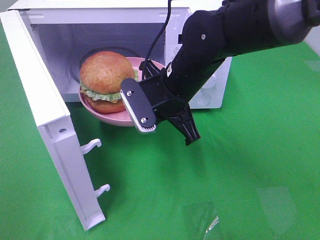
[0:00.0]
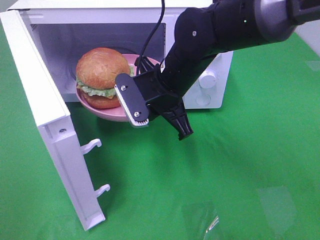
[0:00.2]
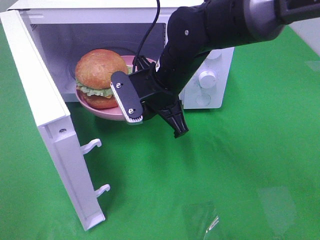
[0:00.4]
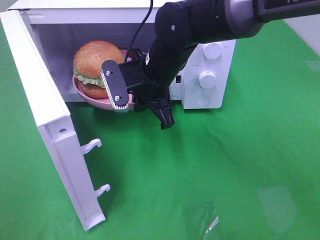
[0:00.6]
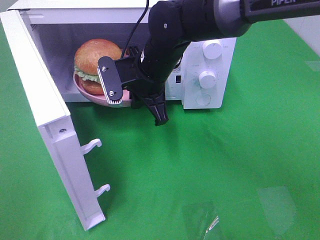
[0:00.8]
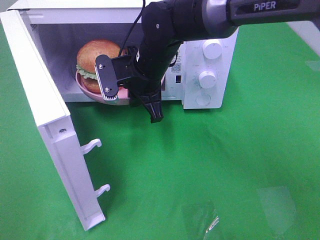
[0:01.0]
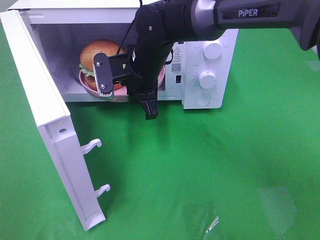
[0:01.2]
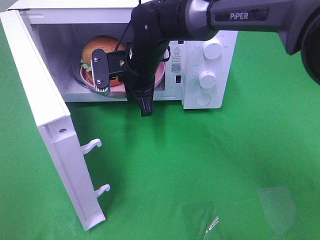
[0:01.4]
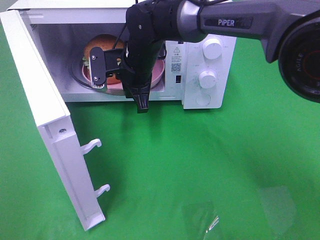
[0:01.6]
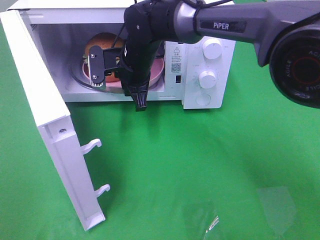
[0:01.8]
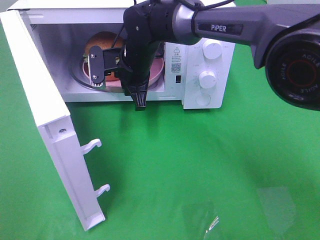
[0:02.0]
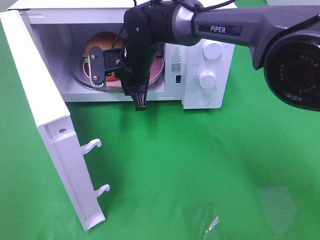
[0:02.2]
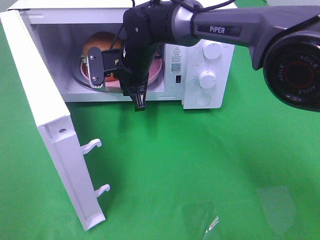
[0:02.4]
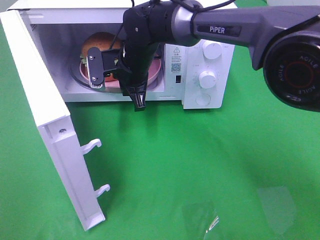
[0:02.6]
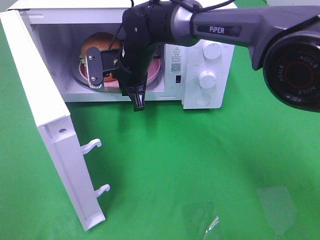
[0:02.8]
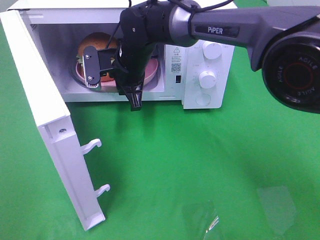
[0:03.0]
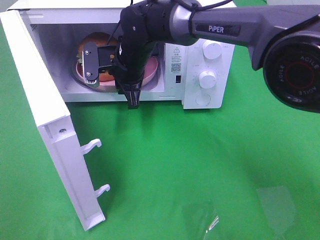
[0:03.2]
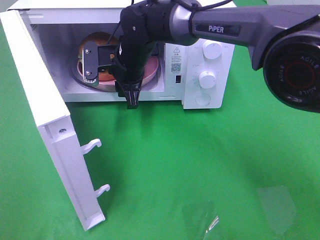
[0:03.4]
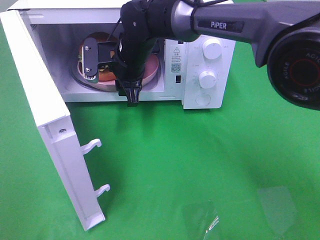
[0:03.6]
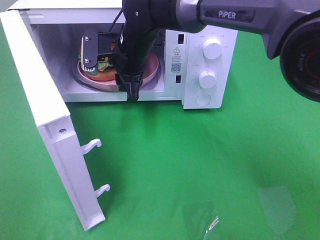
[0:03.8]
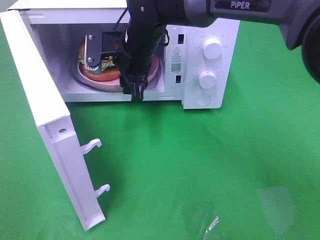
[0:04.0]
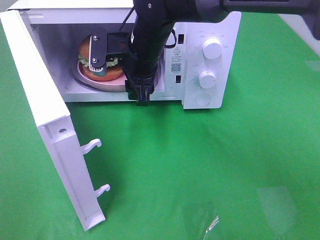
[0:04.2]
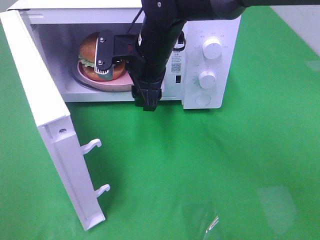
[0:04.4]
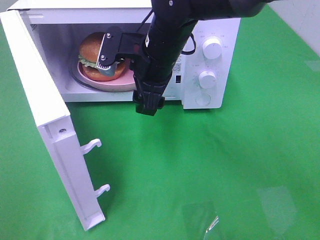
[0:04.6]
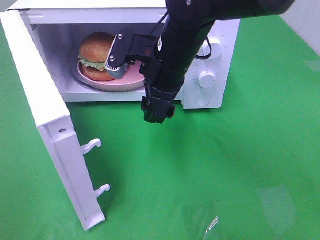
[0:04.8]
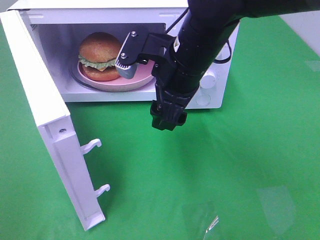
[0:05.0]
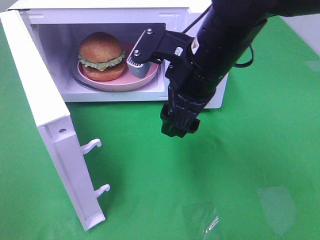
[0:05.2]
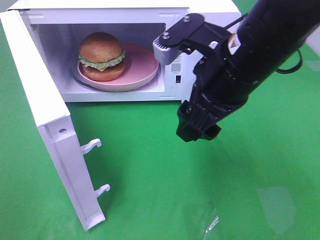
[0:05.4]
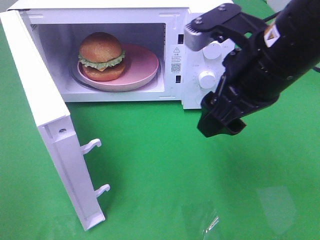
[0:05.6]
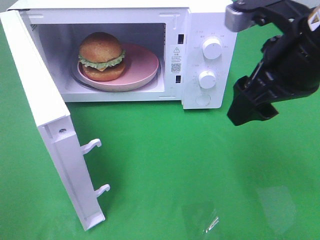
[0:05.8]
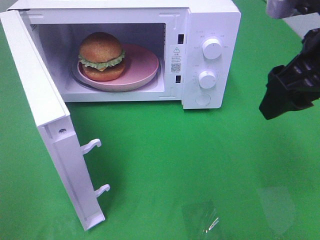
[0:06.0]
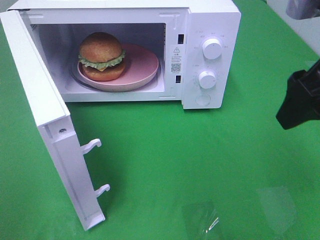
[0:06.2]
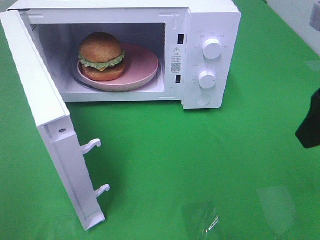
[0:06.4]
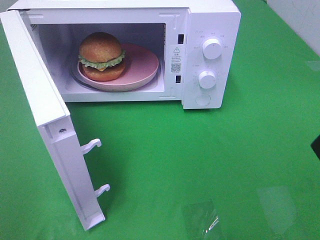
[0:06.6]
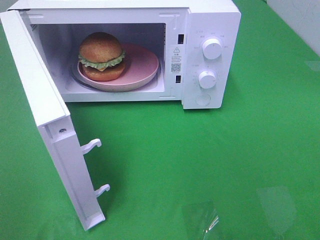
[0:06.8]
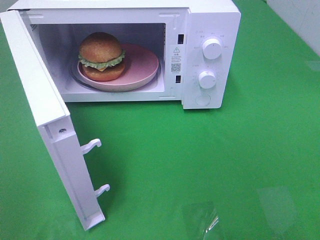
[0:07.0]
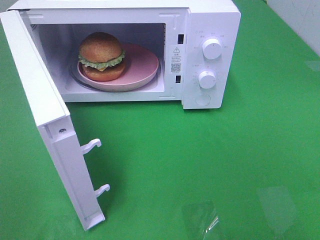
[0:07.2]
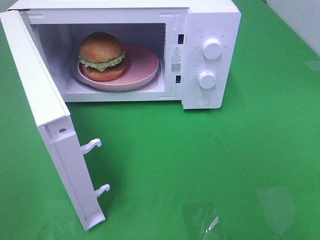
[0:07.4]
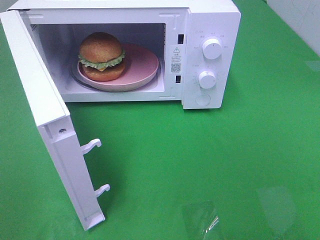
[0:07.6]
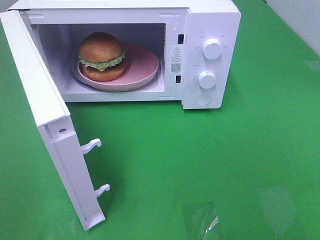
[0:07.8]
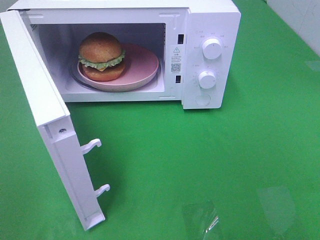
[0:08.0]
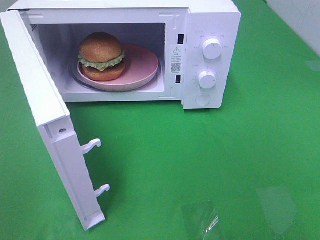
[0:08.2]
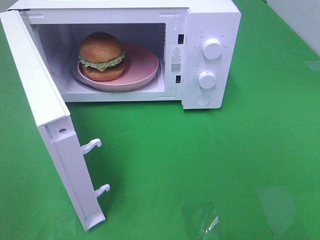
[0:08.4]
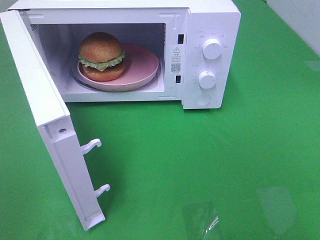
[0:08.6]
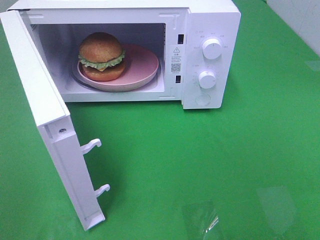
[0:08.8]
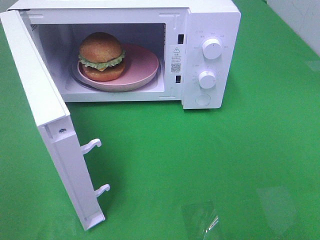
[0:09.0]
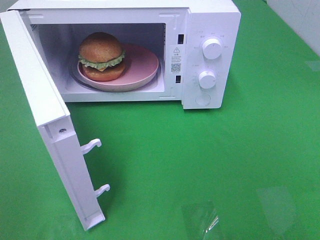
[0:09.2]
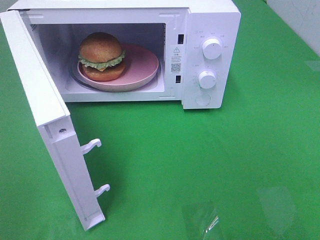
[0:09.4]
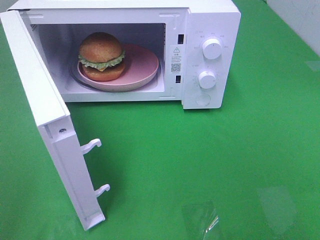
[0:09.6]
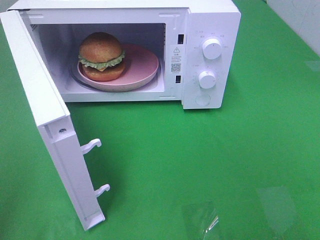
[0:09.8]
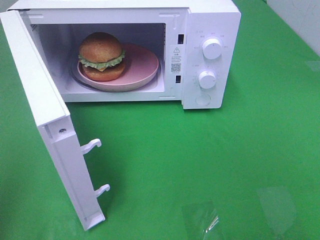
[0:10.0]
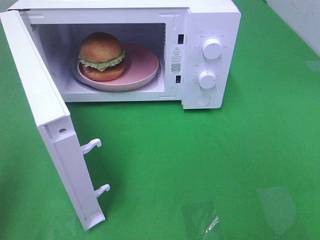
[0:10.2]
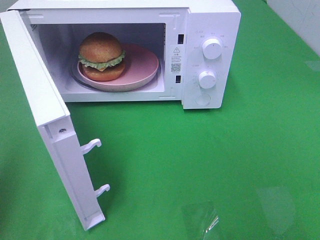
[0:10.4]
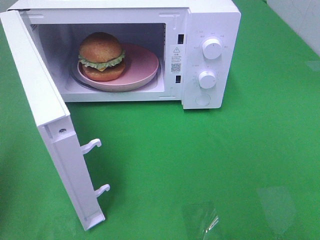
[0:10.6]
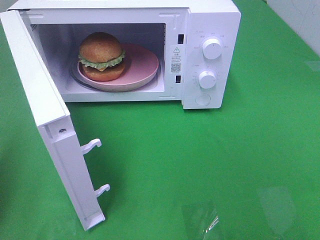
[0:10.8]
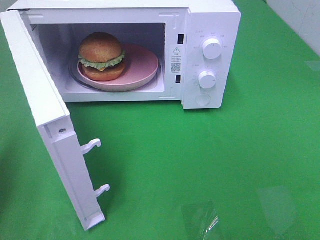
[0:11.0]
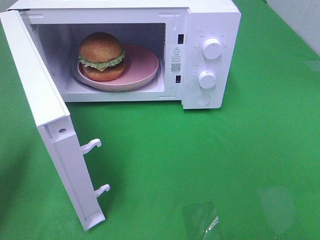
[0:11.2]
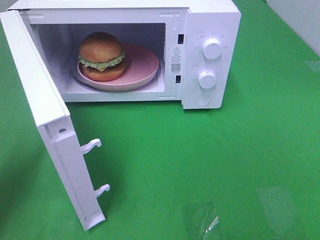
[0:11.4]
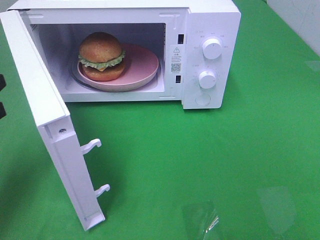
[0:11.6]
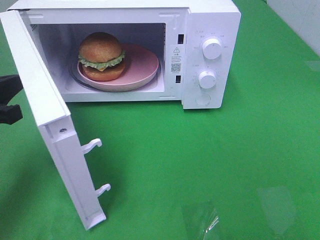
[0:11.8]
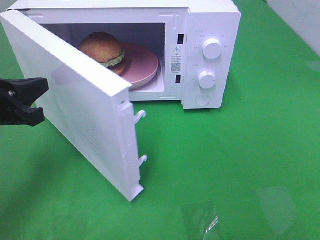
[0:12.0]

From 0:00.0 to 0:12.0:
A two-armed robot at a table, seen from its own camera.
Task of the whole recording: Heat the burger.
Step, from 0:00.0 to 0:02.6: Right hand: place the plate in the microwave.
From 0:00.0 to 0:01.6: The right gripper travels forward and to the left by approximately 10 cm.
From 0:01.6 to 0:03.0: The grippers make only small movements.
From 0:03.0 to 0:04.4: The right gripper changes place by roughly 10 cm, and opens its fingers.
From 0:04.4 to 0:06.0: The right gripper is displaced to the right, backward and upward by about 25 cm.
From 0:06.0 to 0:07.6: The right gripper travels backward and to the right by about 25 cm.
From 0:07.6 to 0:09.0: The two grippers keep their place.
From 0:10.4 to 0:12.0: The left gripper heads forward, downward and to the right, covering about 20 cm.

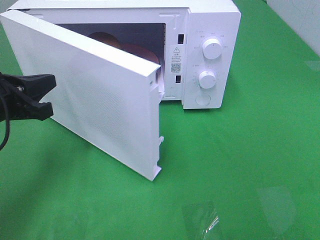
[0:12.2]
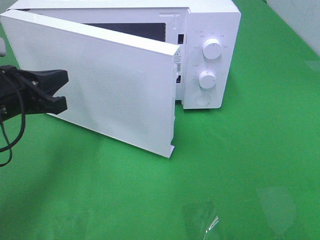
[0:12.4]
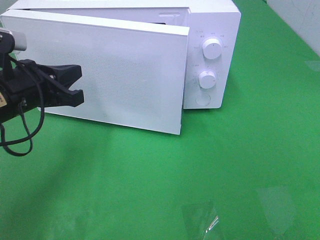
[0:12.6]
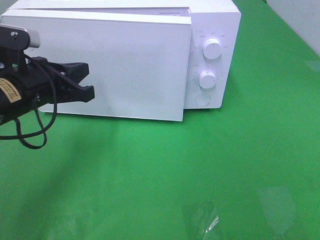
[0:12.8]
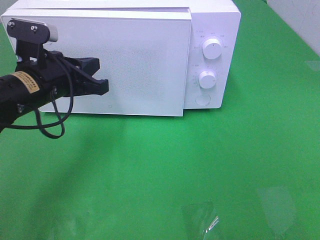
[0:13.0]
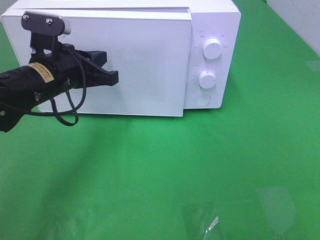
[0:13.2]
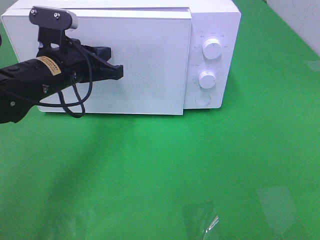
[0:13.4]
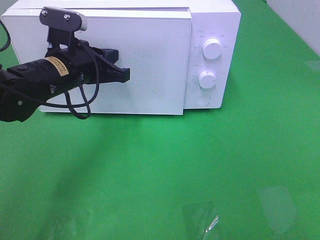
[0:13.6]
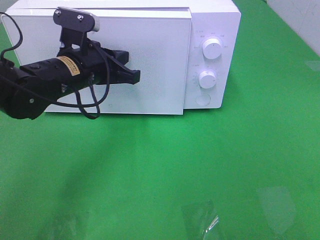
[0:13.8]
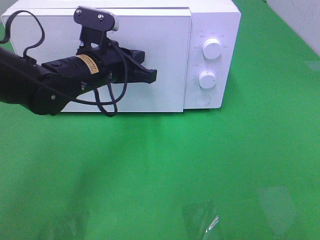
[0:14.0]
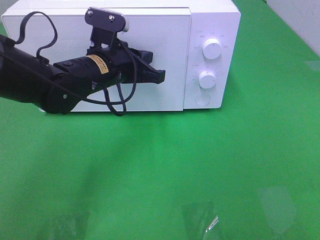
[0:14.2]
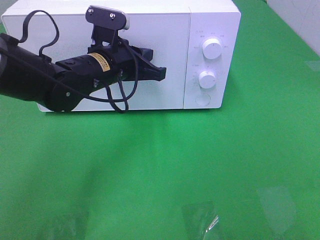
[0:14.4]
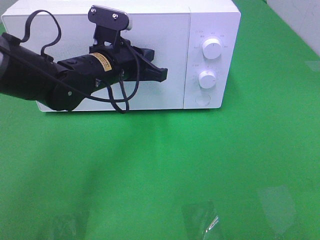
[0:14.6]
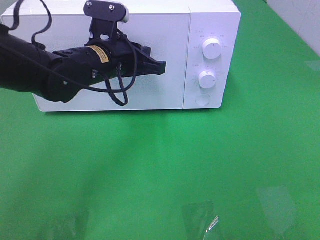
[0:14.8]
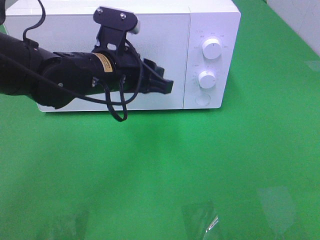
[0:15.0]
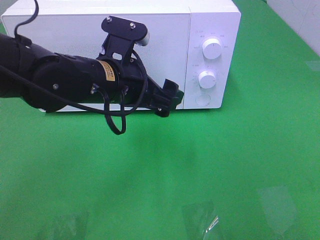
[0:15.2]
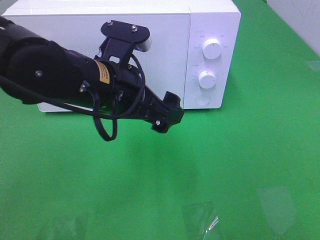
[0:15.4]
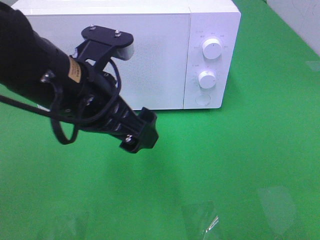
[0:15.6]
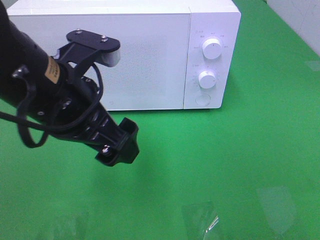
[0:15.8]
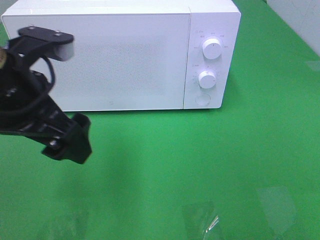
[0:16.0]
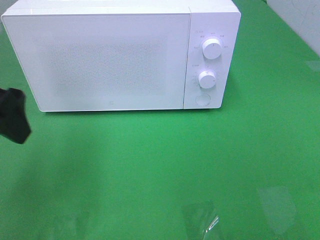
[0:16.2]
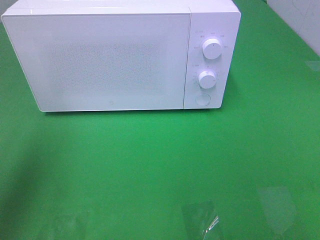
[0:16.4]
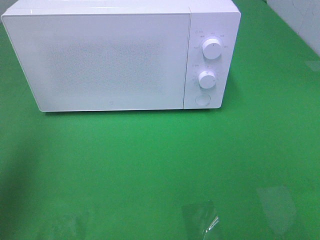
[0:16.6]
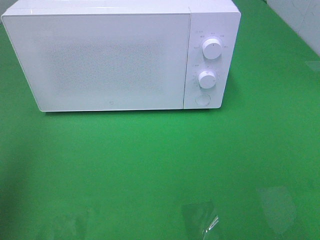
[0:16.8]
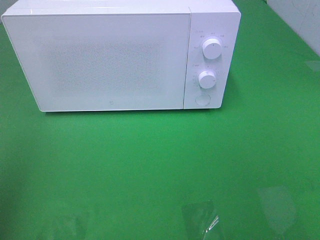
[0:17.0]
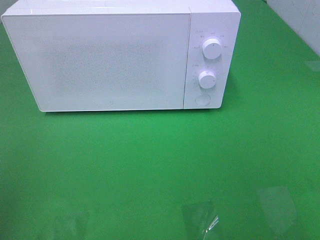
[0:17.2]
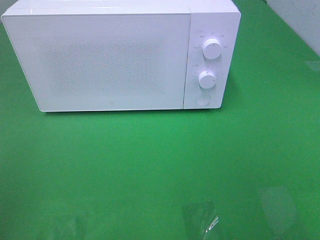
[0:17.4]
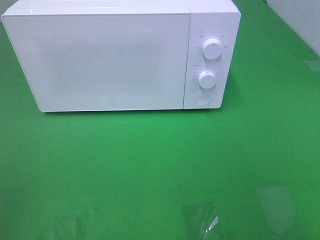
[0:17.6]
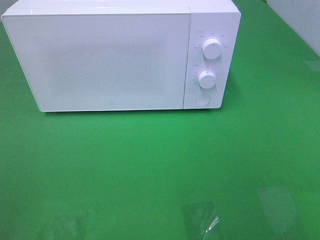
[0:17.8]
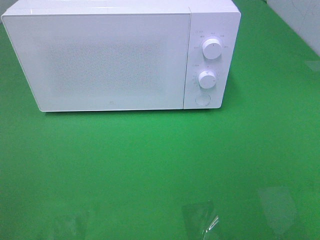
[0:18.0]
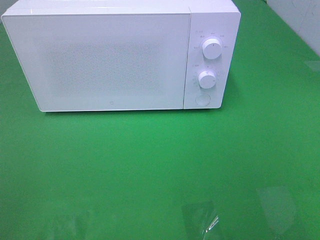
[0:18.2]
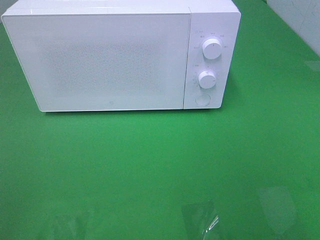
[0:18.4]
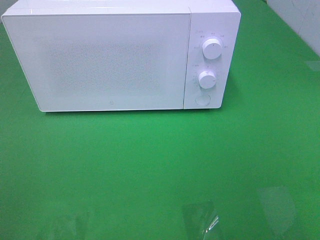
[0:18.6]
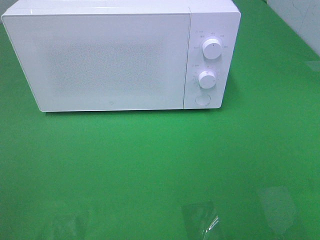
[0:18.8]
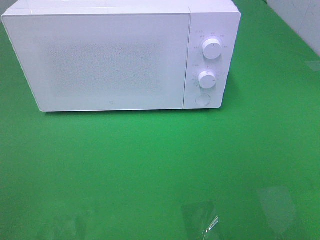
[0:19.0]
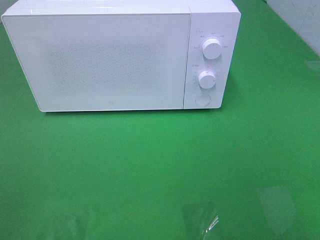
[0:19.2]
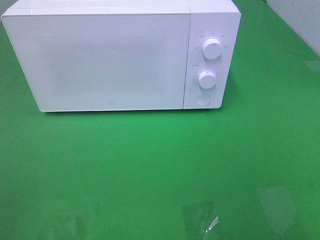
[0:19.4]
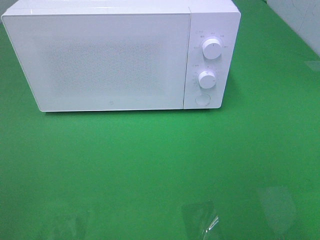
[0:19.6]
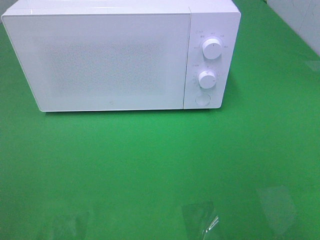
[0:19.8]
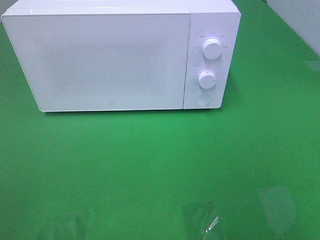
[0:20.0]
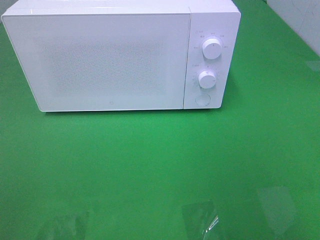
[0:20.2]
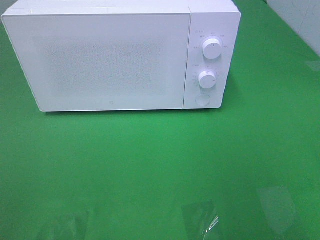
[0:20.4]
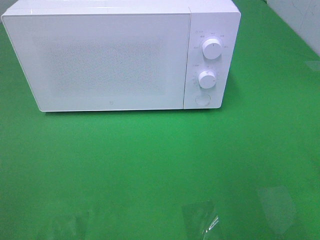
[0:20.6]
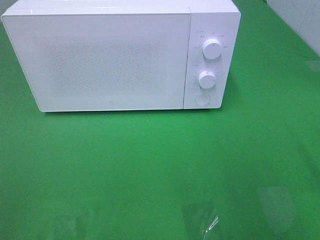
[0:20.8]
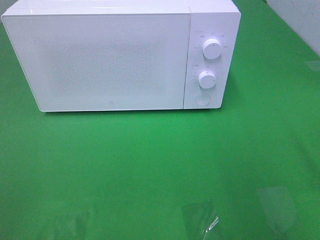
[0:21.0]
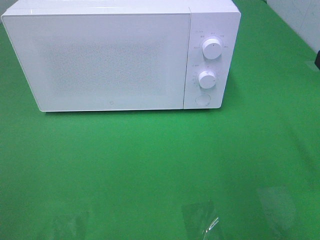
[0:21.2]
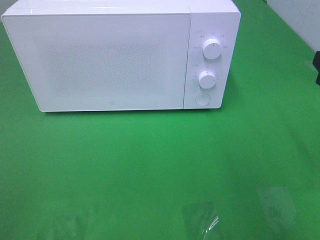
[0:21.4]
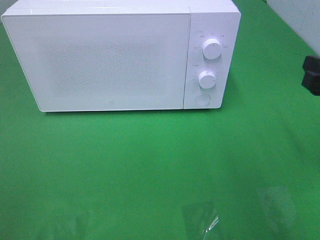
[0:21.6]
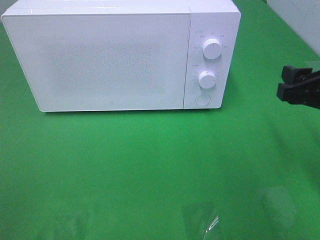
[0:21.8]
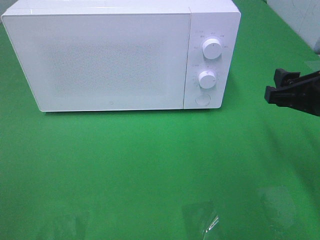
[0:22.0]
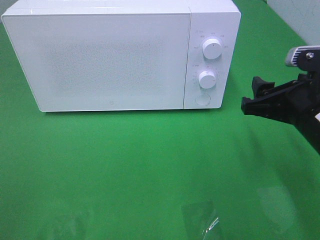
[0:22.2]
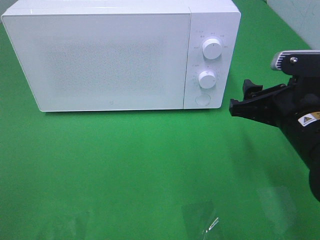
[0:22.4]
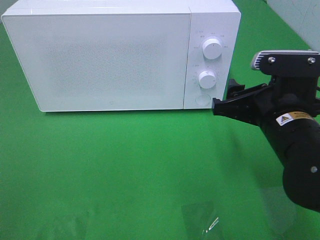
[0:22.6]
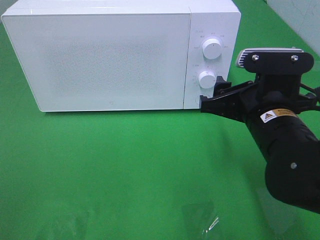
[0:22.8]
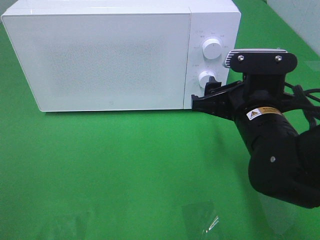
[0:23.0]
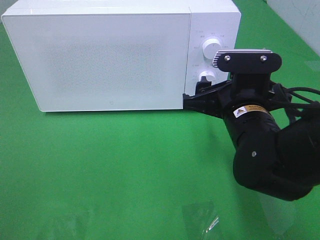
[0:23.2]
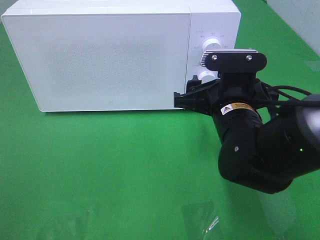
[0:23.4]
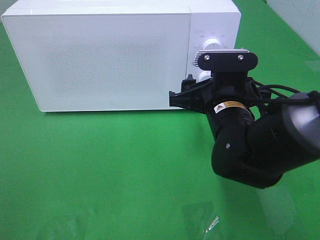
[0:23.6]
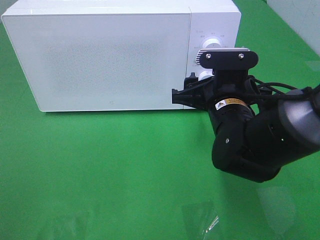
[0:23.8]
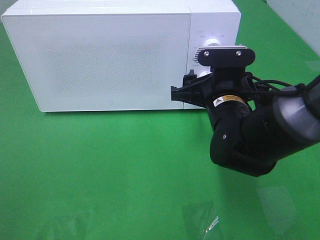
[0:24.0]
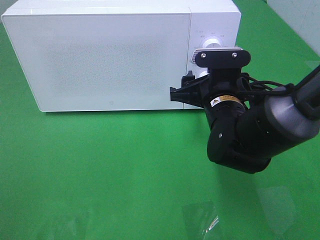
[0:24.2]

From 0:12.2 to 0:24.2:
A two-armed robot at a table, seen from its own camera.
Task of the whole recording: Heat the burger.
Step, from 0:12.2 to 0:14.8: Left hand: close the microwave door.
From 0:12.2 to 0:13.8: The left gripper moves to the right and forward, about 15 cm.
From 0:13.8 to 0:15.2: The left gripper is displaced to the right and backward by approximately 10 cm, and opens its fingers.
From 0:15.2 to 0:16.6: The left gripper is displaced to the left and upward by roughly 30 cm.
From 0:16.6 to 0:18.2: The left gripper moves backward, some 20 cm.
From 0:21.2 to 0:22.6: The right gripper heads to the left and downward, covering roughly 15 cm.
From 0:22.6 to 0:24.2: The right gripper travels forward and to the left by about 10 cm.
